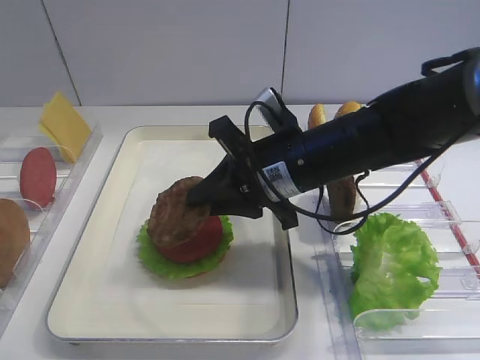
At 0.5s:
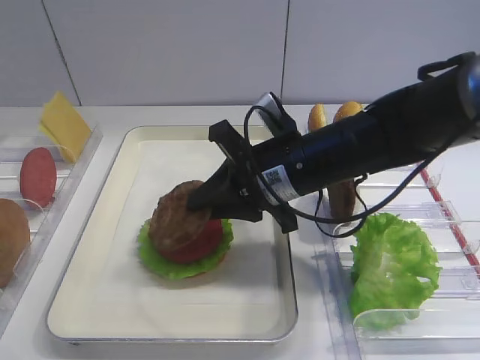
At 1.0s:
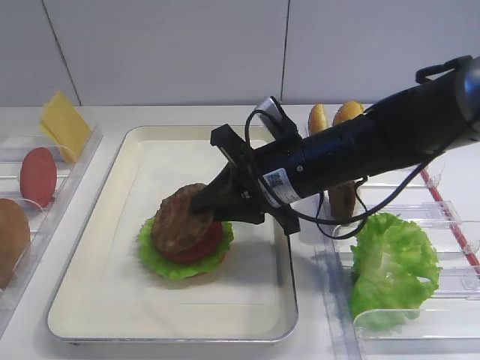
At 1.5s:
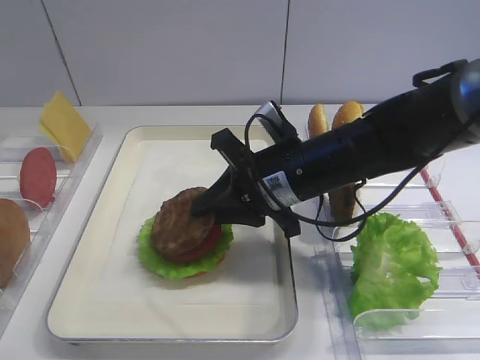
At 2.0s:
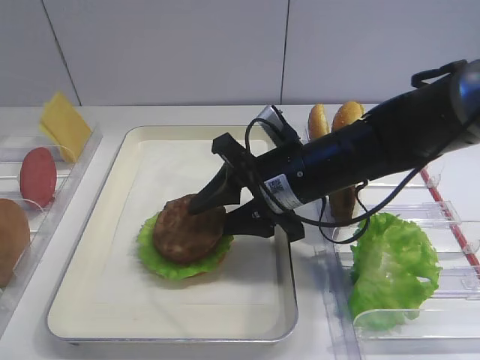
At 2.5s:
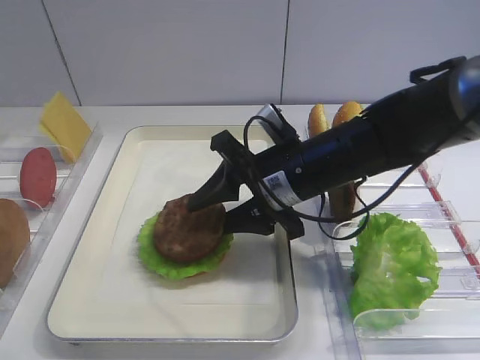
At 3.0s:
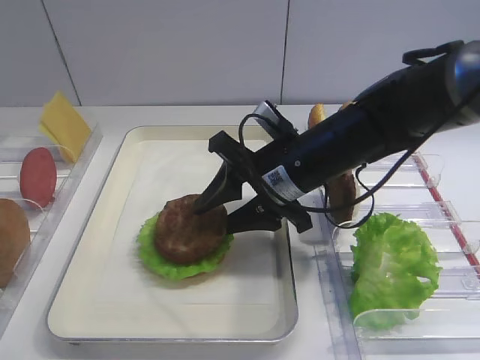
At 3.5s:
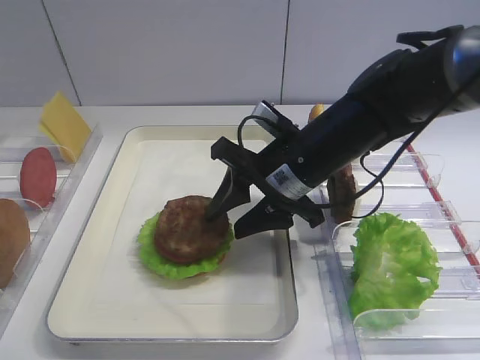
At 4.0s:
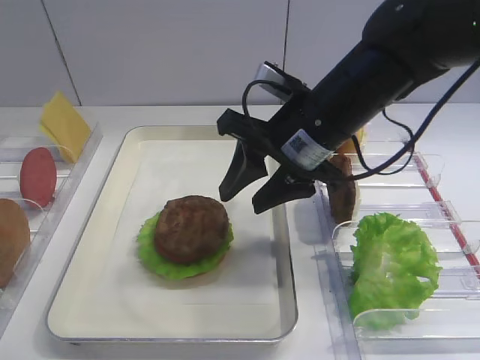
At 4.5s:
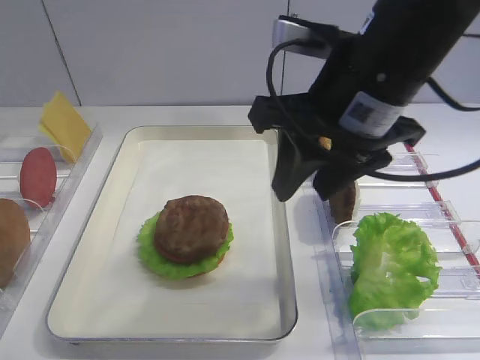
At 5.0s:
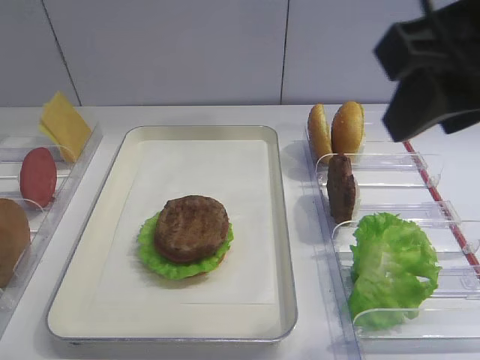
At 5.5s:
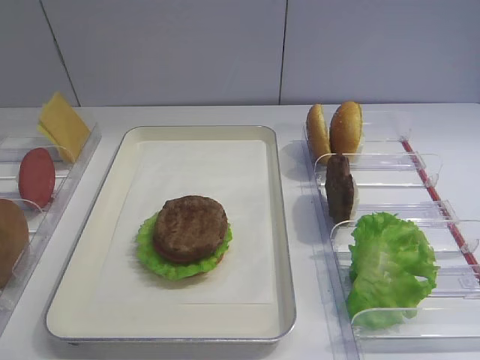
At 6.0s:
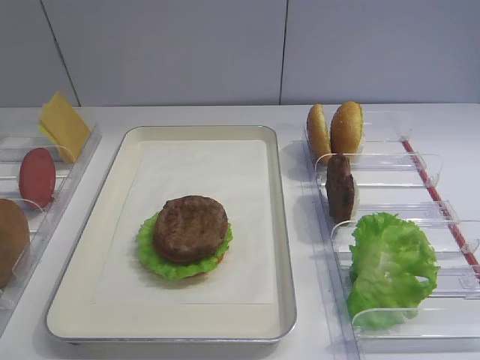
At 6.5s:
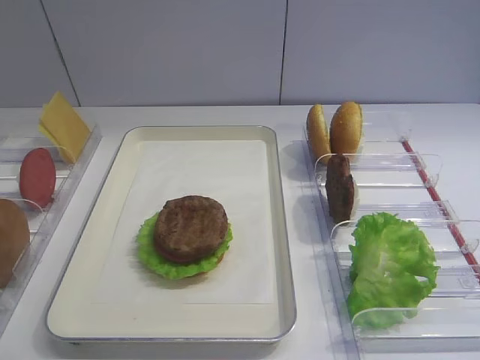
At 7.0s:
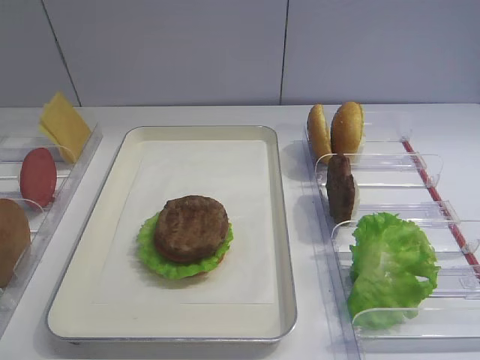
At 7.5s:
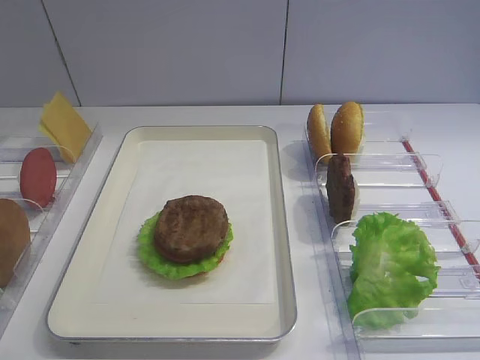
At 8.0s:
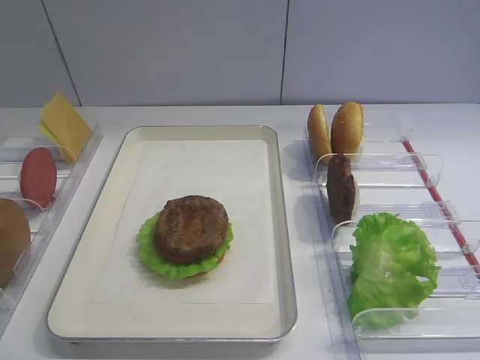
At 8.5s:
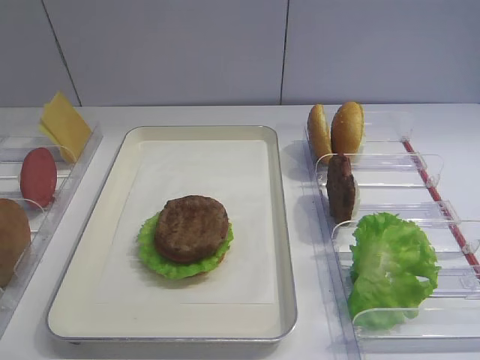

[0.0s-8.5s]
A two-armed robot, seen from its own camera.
Step, 0.0s to 3.5s: Place the cutlet on the tomato slice with the right gripper.
0.0s to 2.0s: The right gripper opens up.
2.0s to 4.0s: The right gripper goes roughly 5 cm upward.
4.0s to 6.5s: The right gripper goes some 35 cm backward and to the right.
6.5s to 8.5s: Both grippers stay about where they are.

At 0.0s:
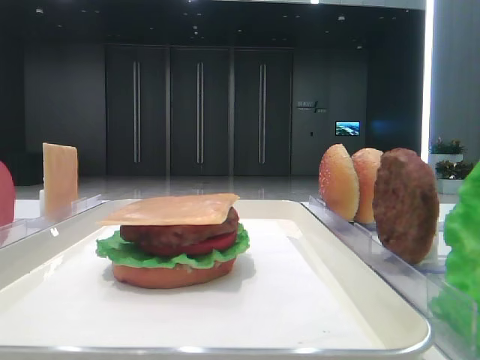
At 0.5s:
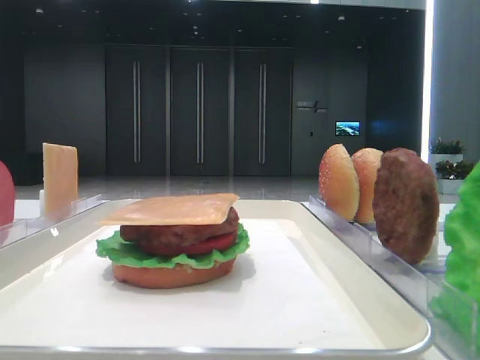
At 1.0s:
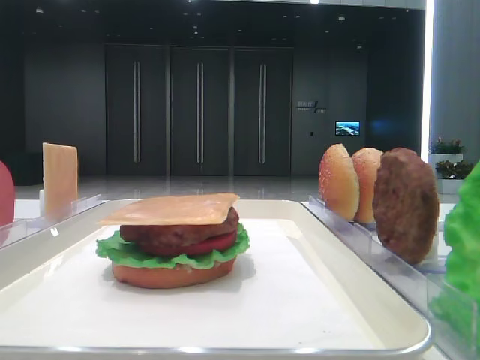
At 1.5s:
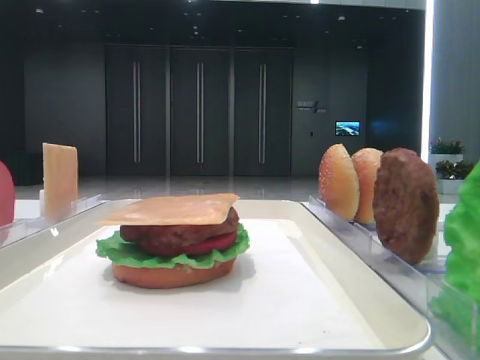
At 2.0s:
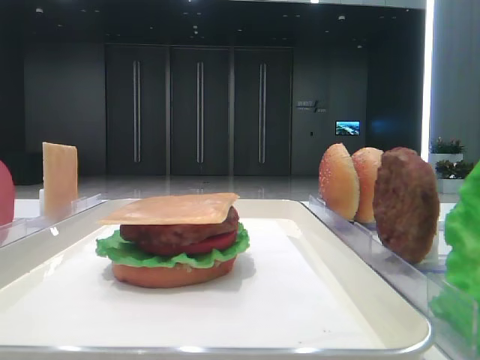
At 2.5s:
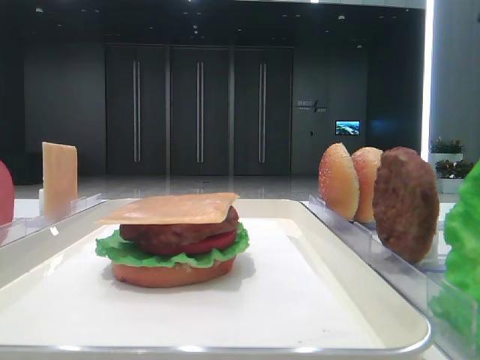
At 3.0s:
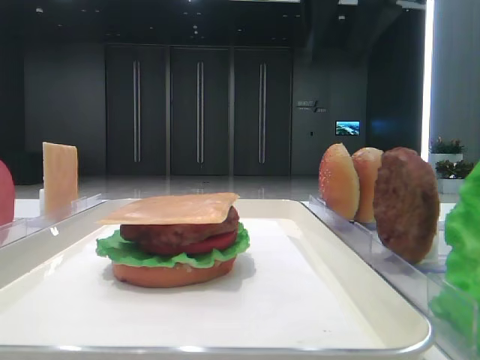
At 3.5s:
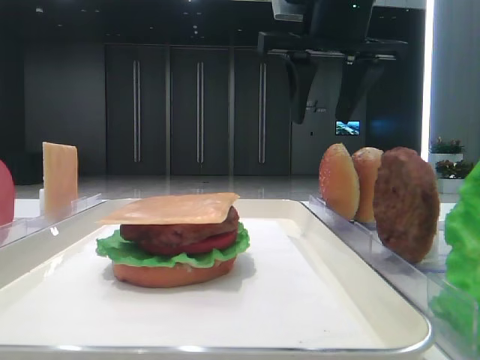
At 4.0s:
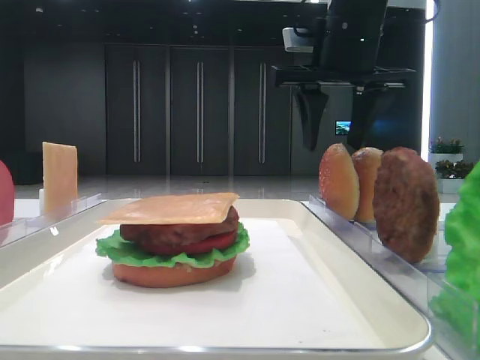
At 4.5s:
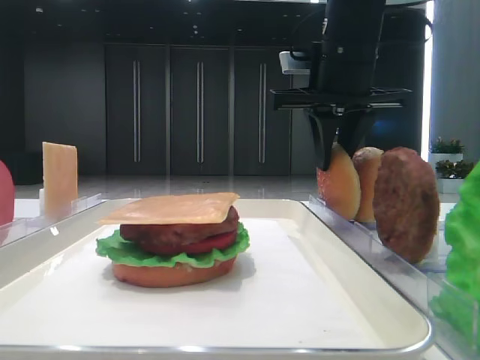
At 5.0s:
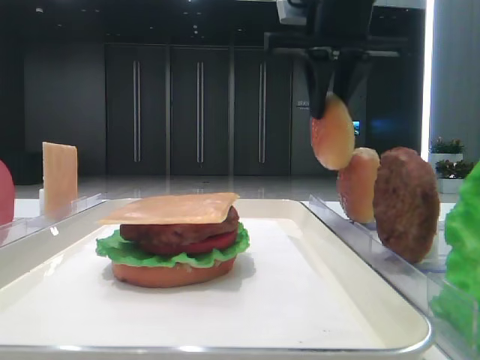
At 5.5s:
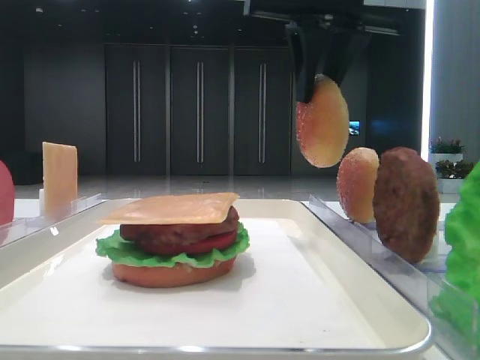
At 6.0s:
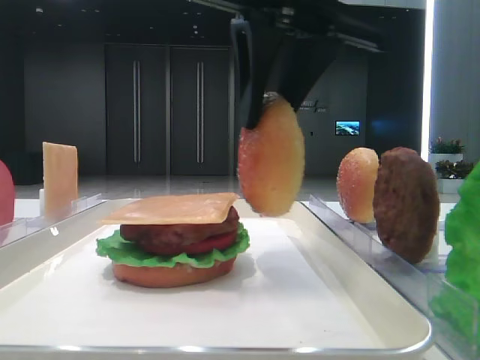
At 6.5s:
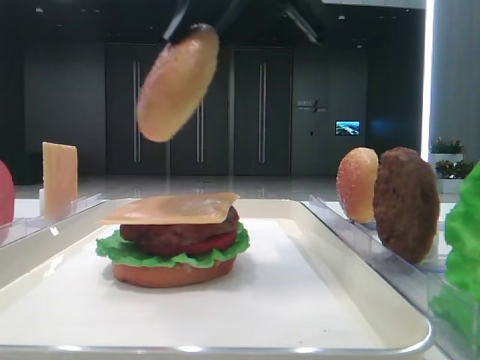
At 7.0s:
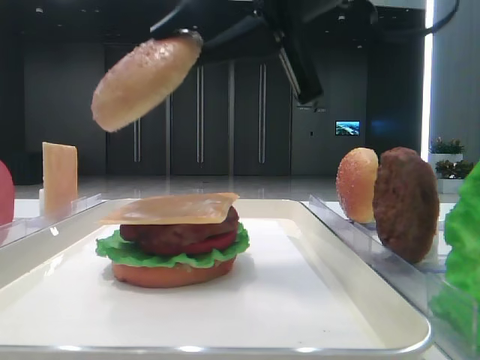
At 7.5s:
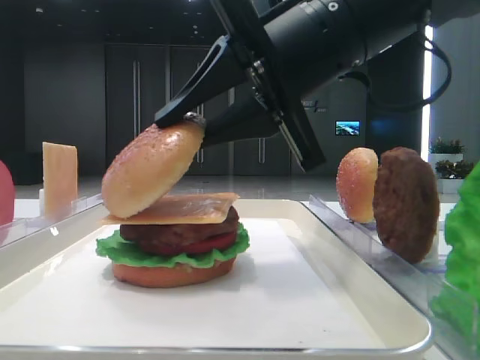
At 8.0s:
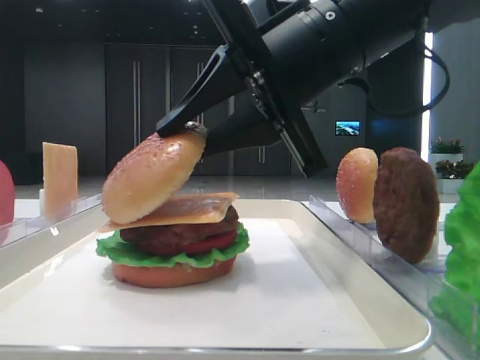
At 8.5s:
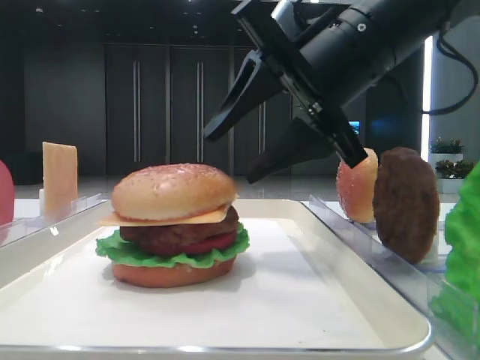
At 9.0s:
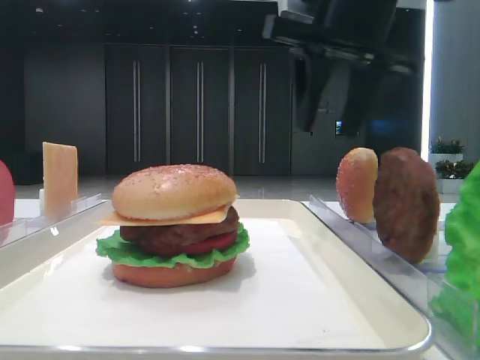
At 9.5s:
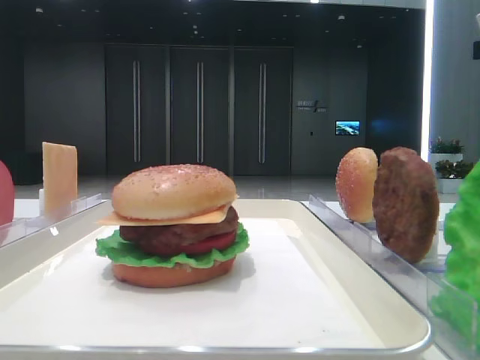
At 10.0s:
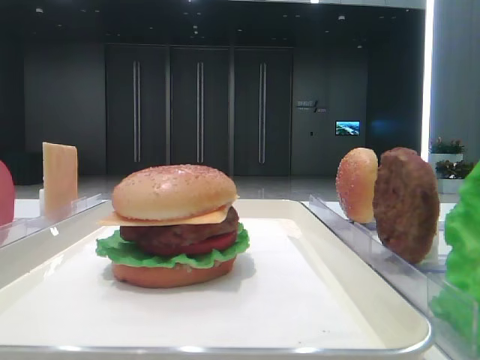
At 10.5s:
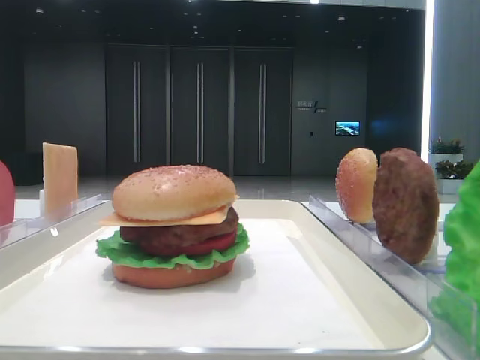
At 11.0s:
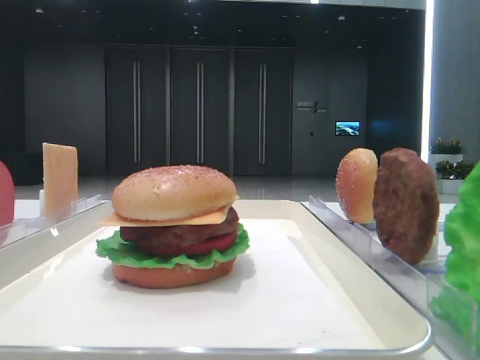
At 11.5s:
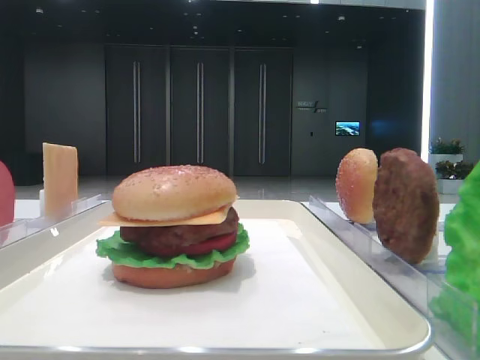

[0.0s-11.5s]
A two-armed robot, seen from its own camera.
Step, 0.0s to 4.5s: Pick up the top bread slice with the right hand.
Step, 5.0s to 8.0s: Place the top bread slice on the cheese with the right hand.
2.0s to 4.0s: The right gripper shifts some 30 cm forward and to the left.
4.0s to 6.0s: The right gripper is displaced backward and to the left by some 15 cm, and closes its fingers.
6.0s to 7.5s: The right gripper shifts some 5 cm downward.
7.5s to 9.5s: The right gripper goes approximately 25 cm to the right and forward, and opens its fingers.
9.5s to 11.5s: The right gripper goes some 40 cm backward.

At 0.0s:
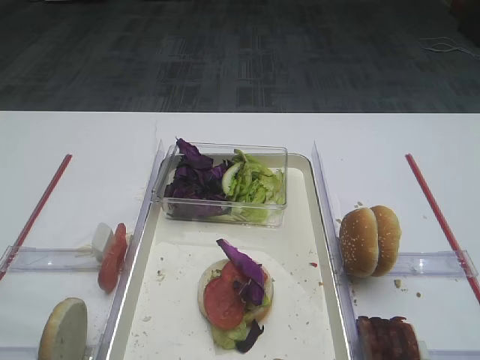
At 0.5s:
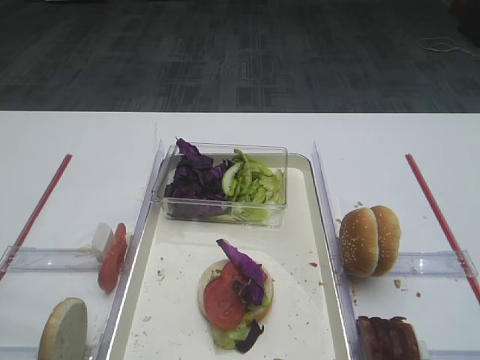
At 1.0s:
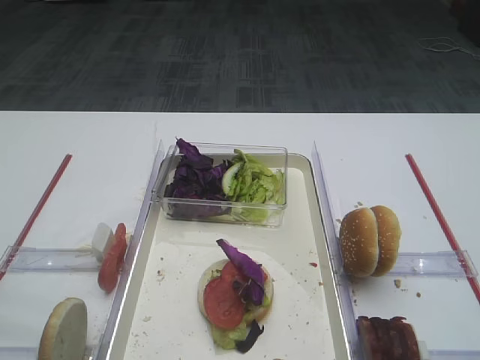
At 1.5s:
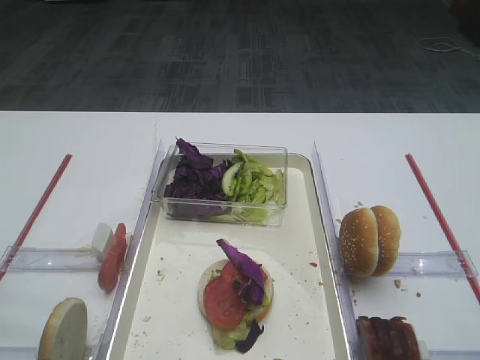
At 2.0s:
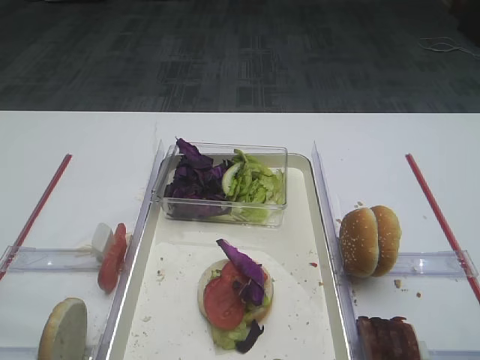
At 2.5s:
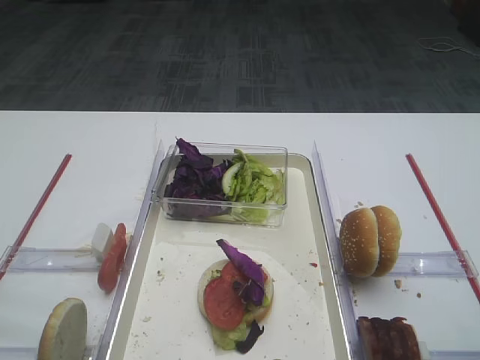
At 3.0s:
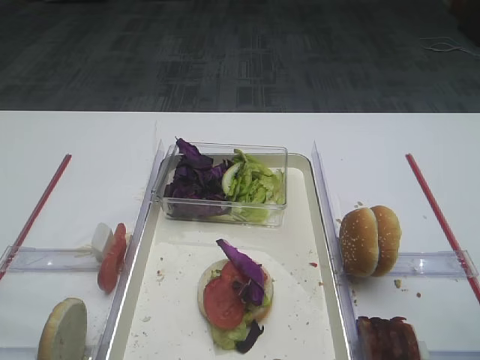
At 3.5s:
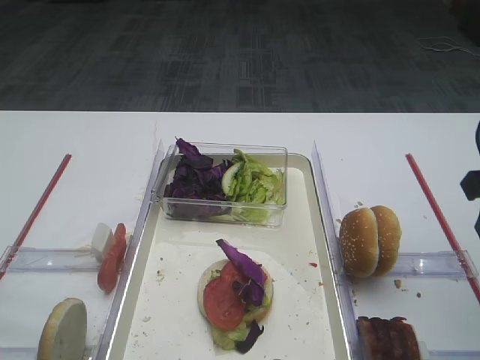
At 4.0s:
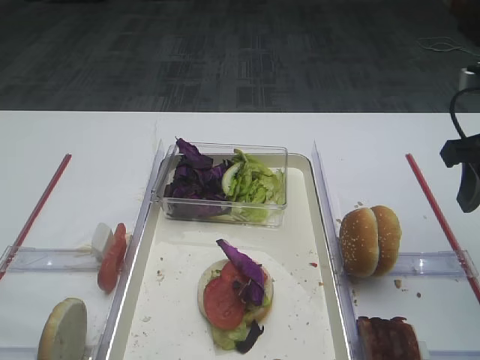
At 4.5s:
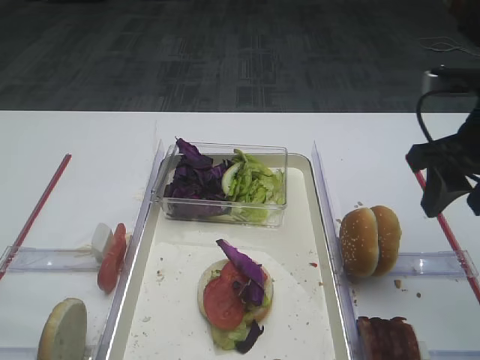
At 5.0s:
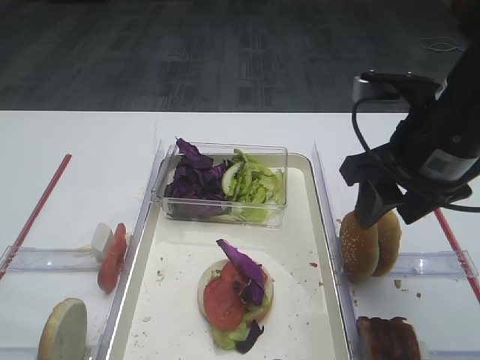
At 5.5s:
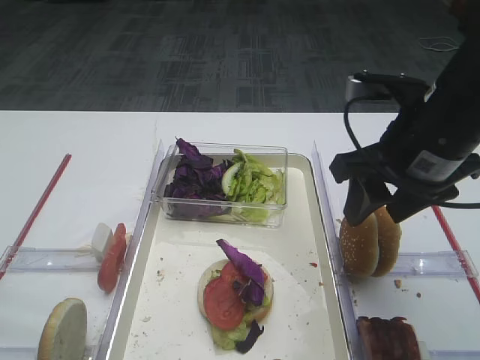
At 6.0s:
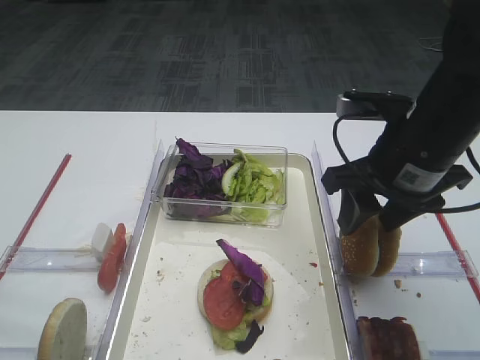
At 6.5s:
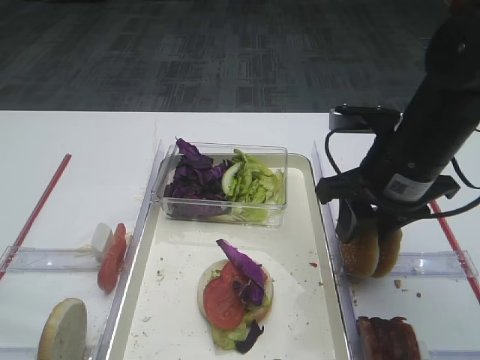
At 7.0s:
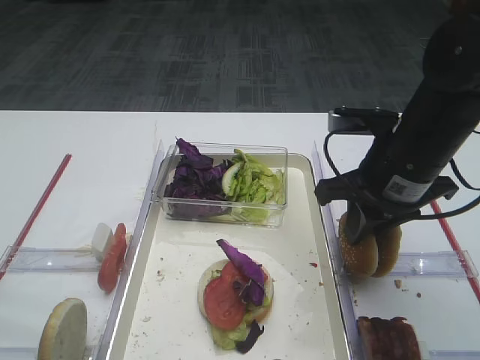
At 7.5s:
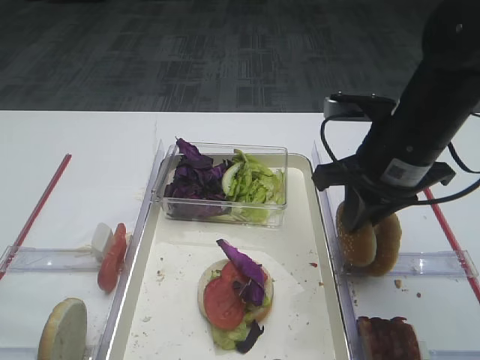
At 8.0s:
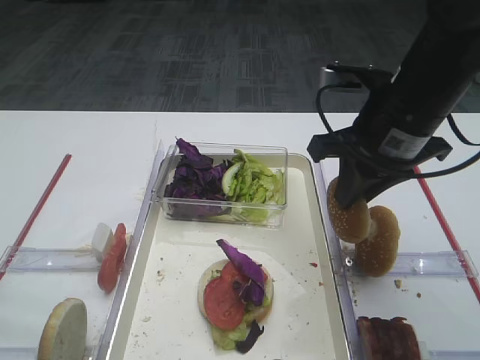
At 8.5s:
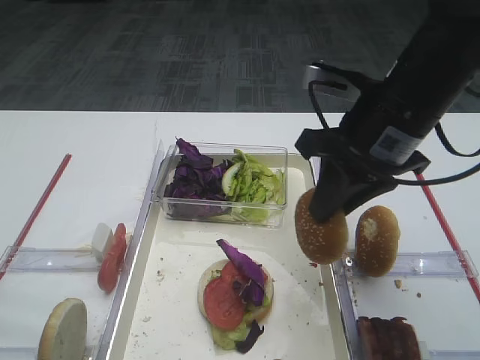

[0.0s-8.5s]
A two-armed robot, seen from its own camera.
Step, 0.0s to 7.5s: Pick up the hamburger lid with the right gripper.
2.0s to 4.0s: The right gripper moves forward, roughly 20 cm.
4.0s to 6.5s: The right gripper shifts about 10 cm to the left.
6.5s to 8.5s: The right gripper heads upward, covering some 5 cm, and closes its fingers.
